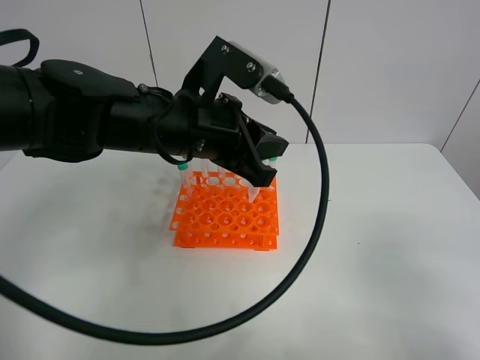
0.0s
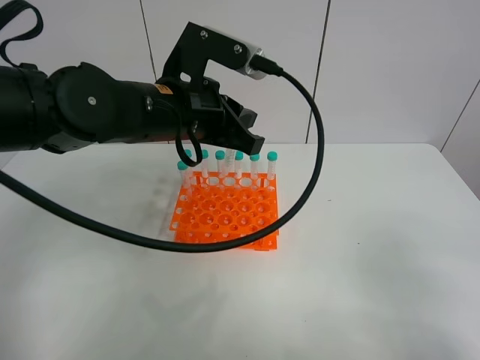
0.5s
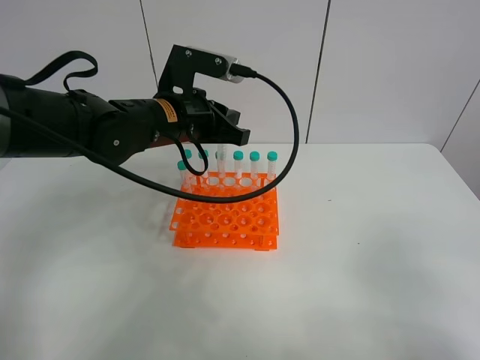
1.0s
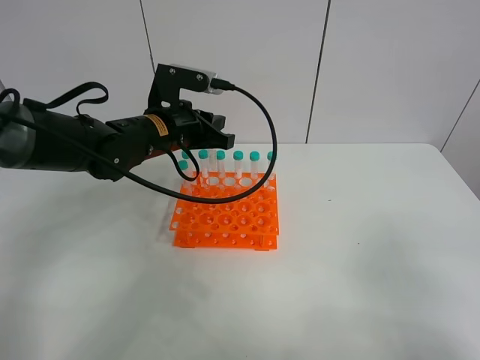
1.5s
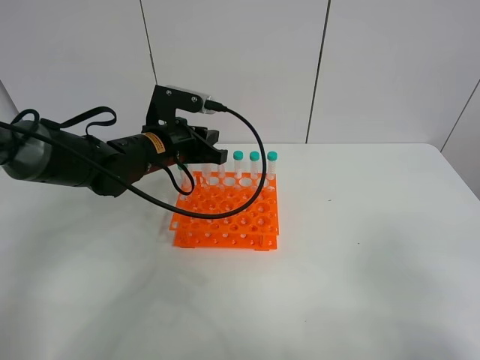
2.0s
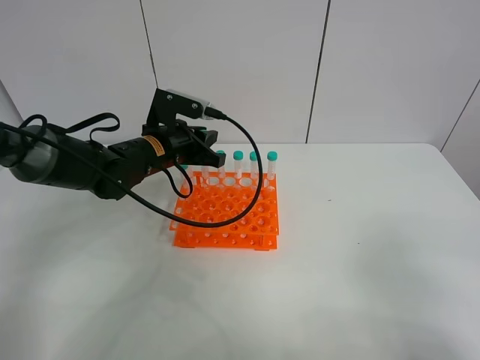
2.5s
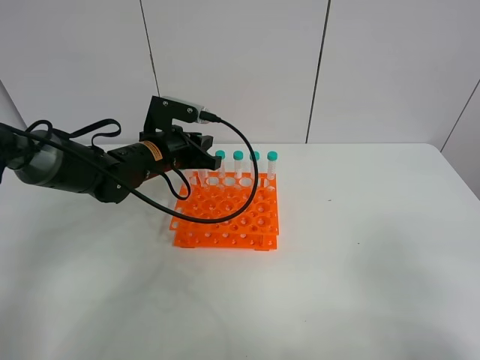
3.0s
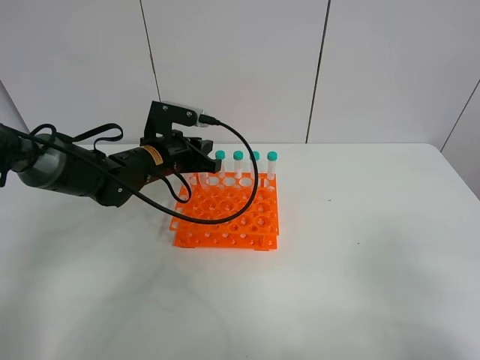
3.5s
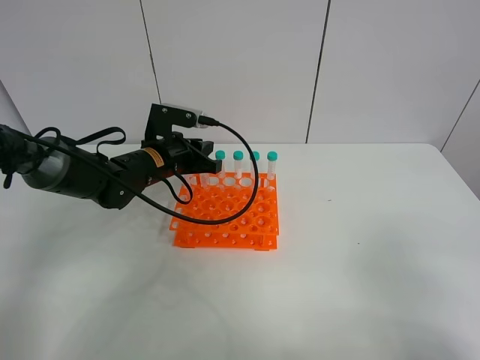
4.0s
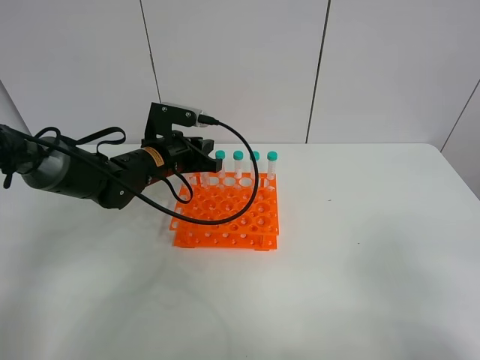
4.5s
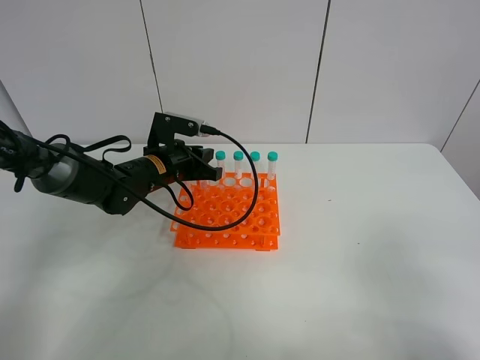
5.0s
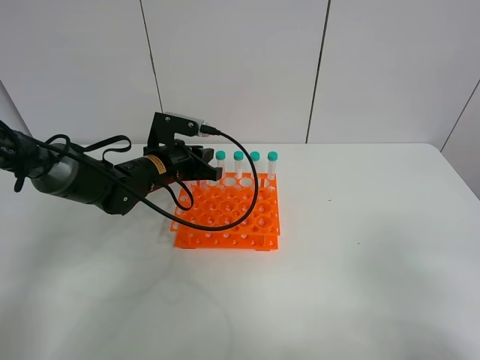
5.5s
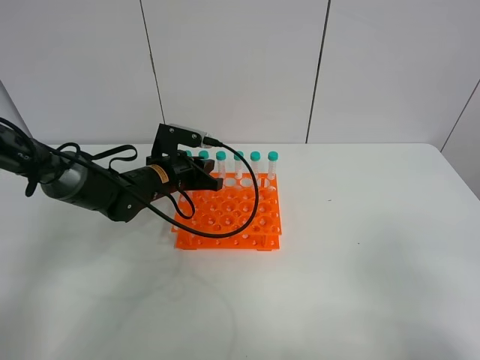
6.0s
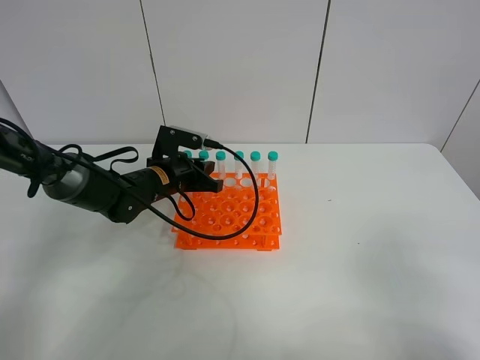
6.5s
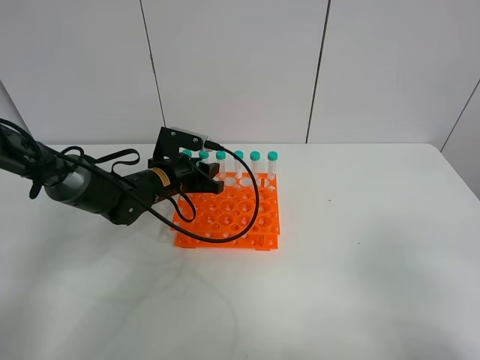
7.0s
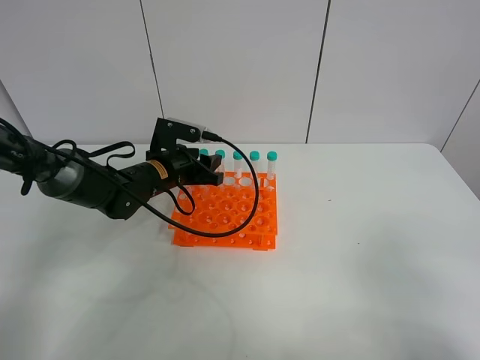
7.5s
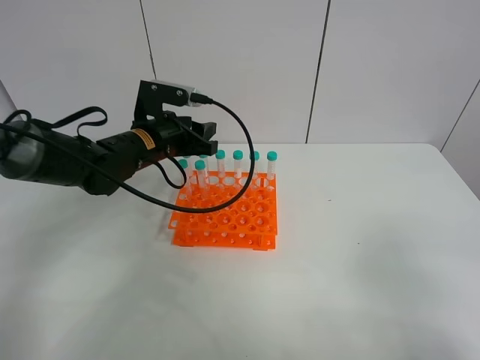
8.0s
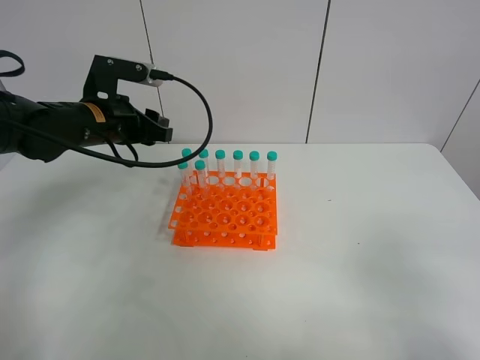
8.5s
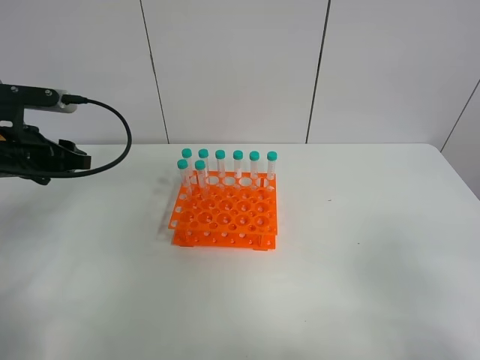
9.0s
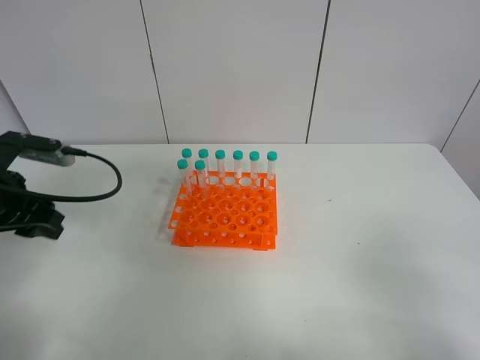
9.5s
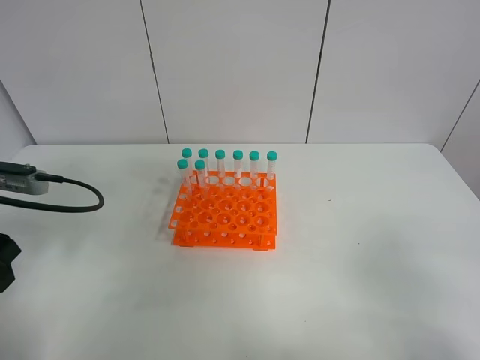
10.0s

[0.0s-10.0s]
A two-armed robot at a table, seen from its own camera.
Task of the whole recording: Put the test tube on the table back onto the test tube rack.
Step, 0.0s to 8.0s: Place the test tube on the test tube rack with the left gripper.
0.0s to 2.0s: The left gripper is displaced downward, forward and to the left by roughly 15 cm.
2.0s to 4.0s: There are only small adjustments of the grippers.
4.0s to 6.0s: The grippers make only small movements.
6.0s to 8.0s: The left gripper goes about 10 cm upward, and opens its fingers.
8.0s to 10.0s: The left gripper is displaced backward and to the left by roughly 25 cm.

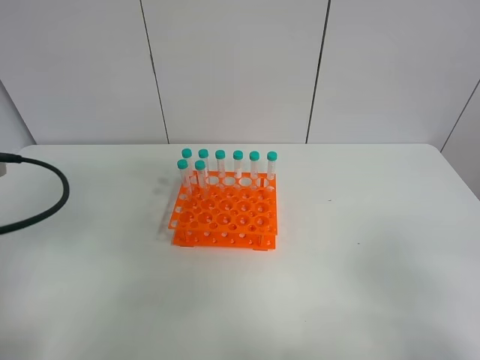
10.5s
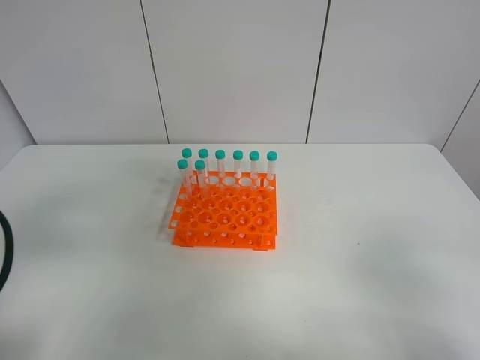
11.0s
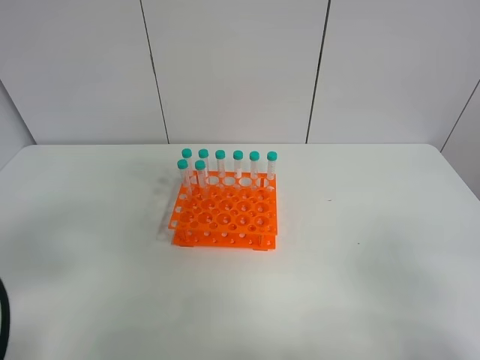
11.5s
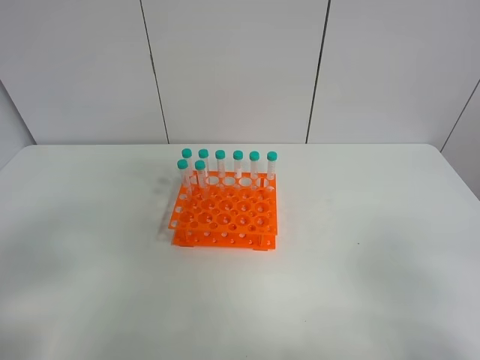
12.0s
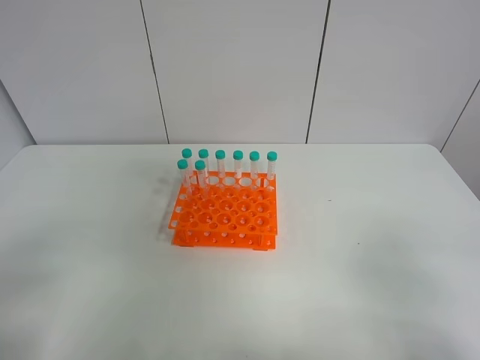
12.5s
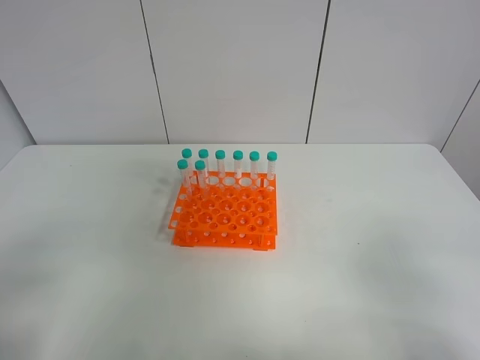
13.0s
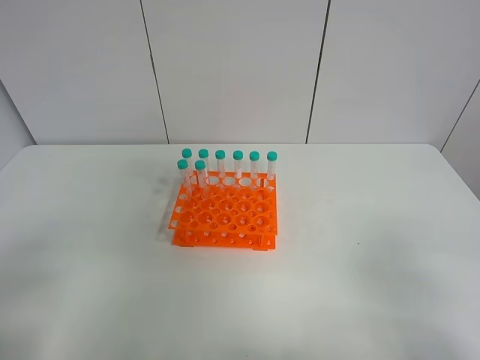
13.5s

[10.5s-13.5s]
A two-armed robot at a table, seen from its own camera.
Task of the whole recording: Put the test tube on the table back onto the test tube rack.
10.5s to 12.0s: The left gripper goes about 10 cm backward.

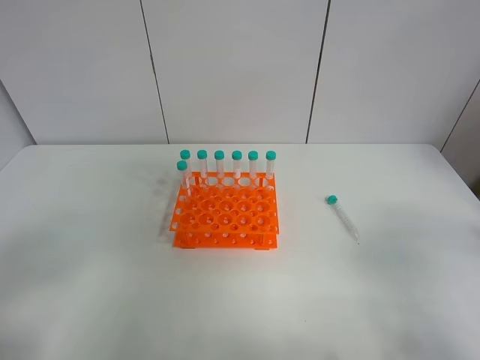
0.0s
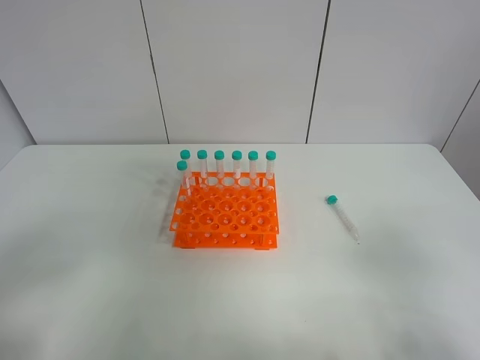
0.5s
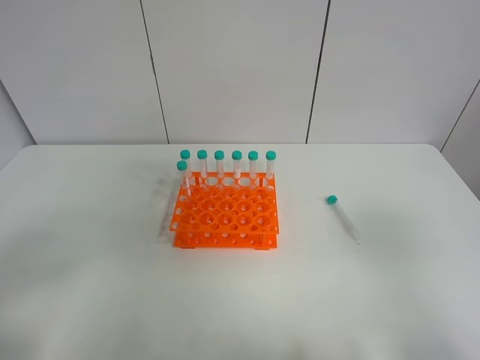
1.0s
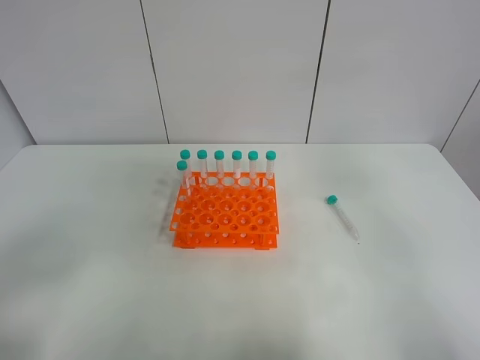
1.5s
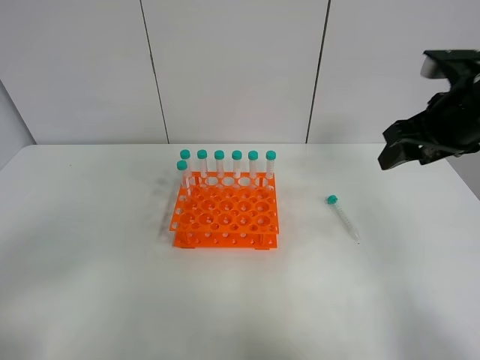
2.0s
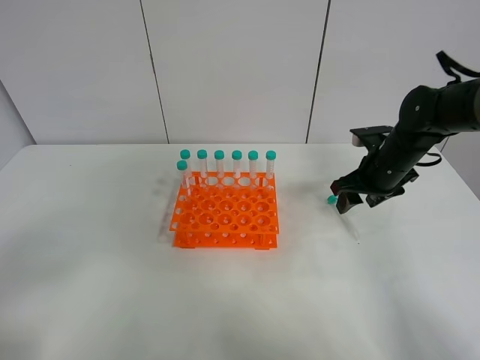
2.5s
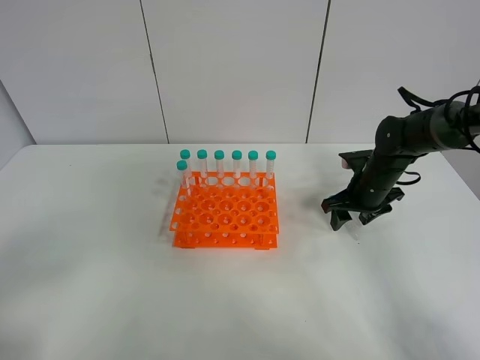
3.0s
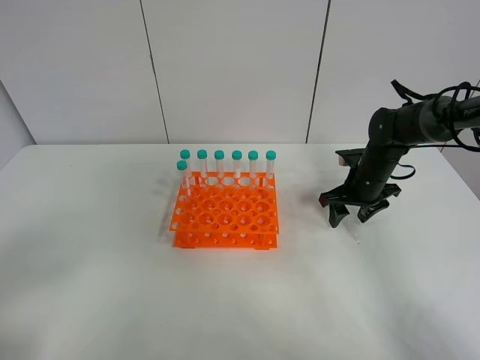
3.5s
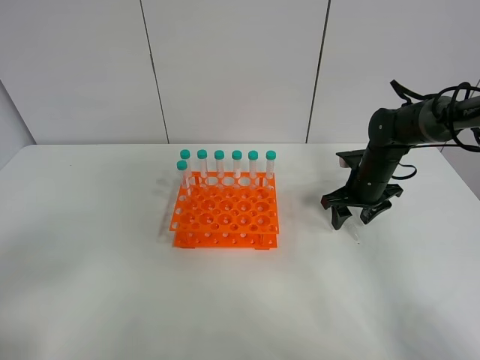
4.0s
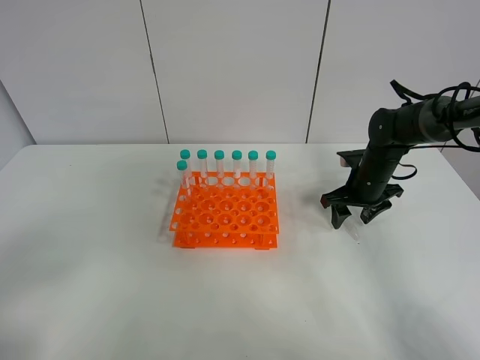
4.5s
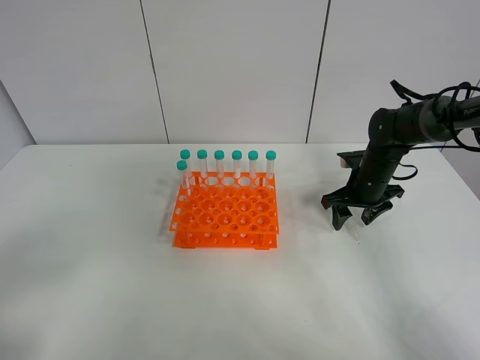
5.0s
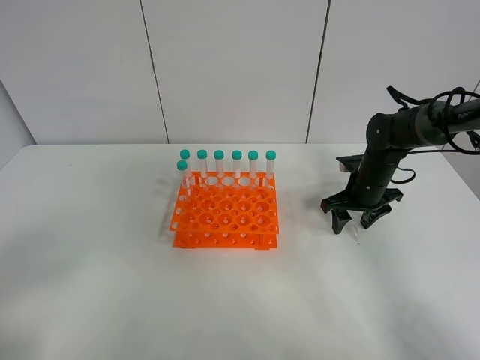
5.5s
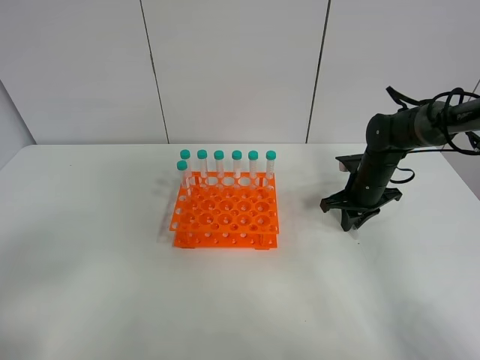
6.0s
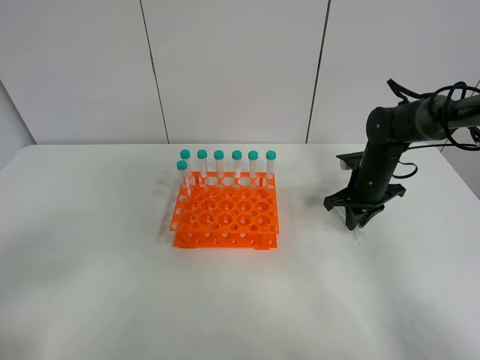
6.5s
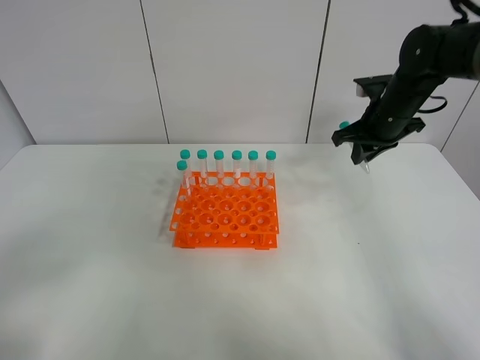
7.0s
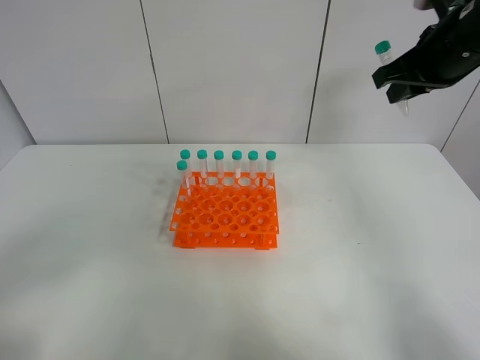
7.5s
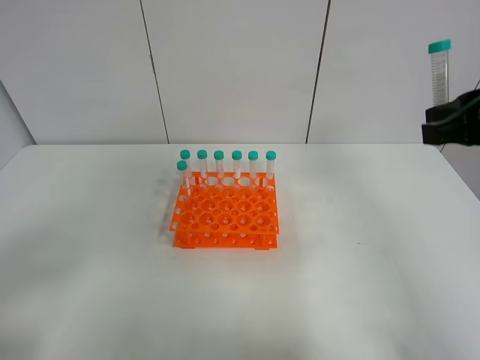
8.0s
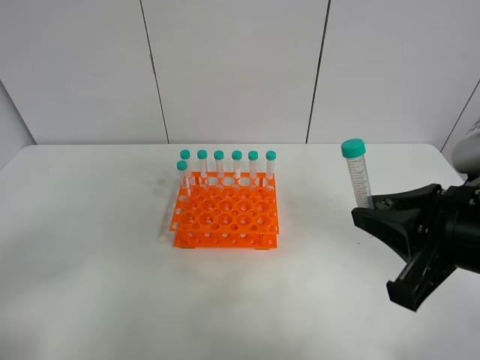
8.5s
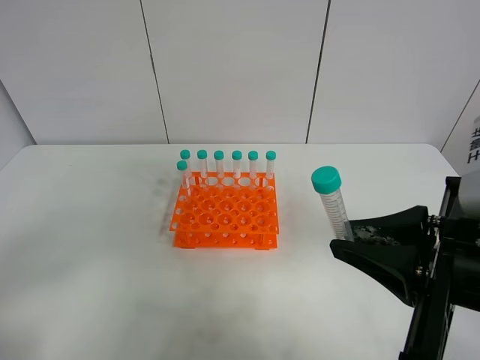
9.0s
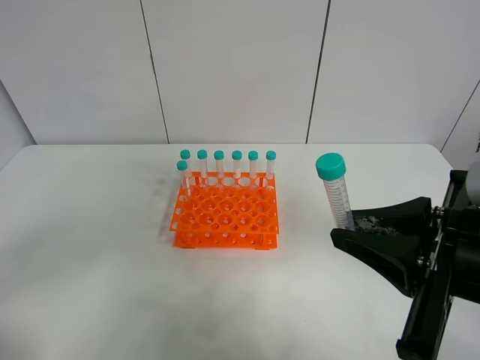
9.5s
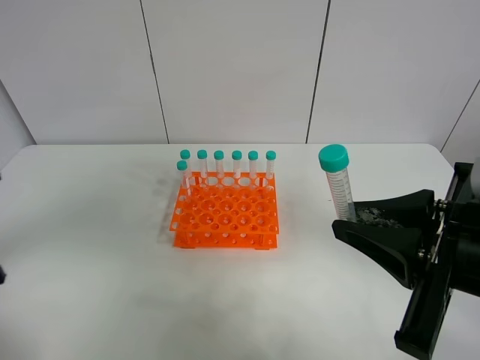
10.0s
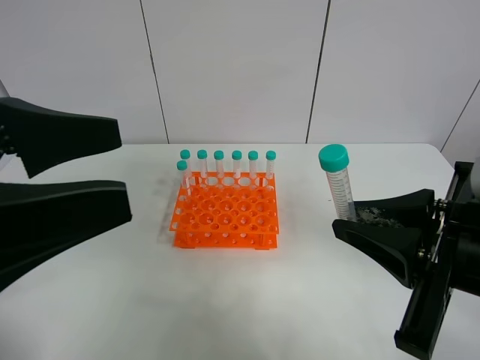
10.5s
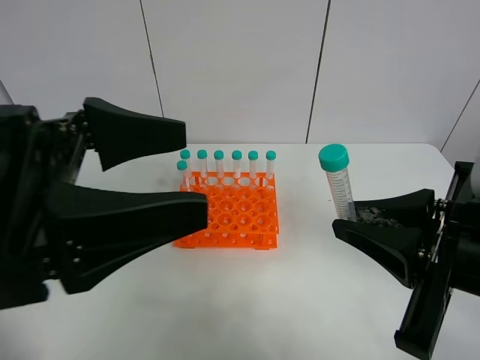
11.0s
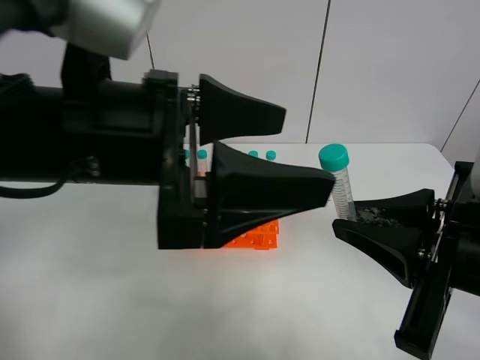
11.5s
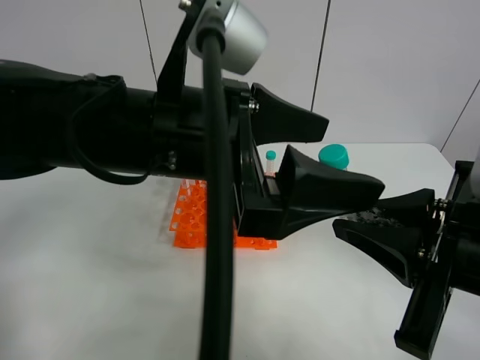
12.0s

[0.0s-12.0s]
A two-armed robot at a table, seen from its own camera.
Task of the whole recording: Put the test tube on the table back onto the test tube rack.
Step, 0.0s to 7.0s: Pick up the test tube with the right gripper.
0.0s to 2.0s: The right gripper heads forward, covering some 30 cm.
2.0s to 4.0s: The right gripper heads downward and forward, covering about 20 cm.
4.0s to 6.0s: The right gripper closes up.
6.0s to 8.0s: The right gripper shifts about 30 cm upward and backward.
8.0s to 10.0s: The left gripper shifts approximately 10 cm upward and to the right. The right gripper moves backward and to the left, approximately 10 cm.
10.0s to 12.0s: The left gripper travels to the right and forward by some 25 cm.
